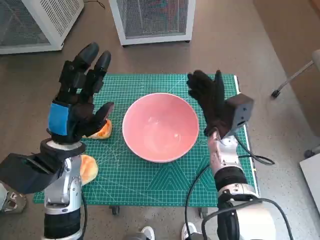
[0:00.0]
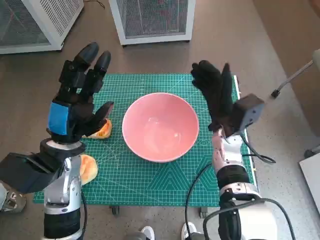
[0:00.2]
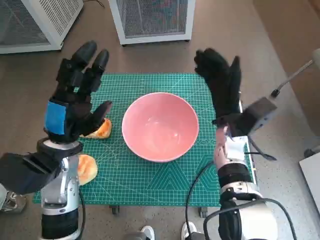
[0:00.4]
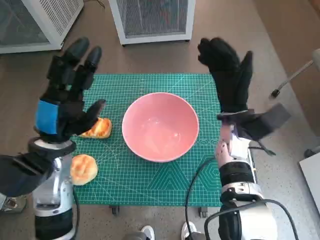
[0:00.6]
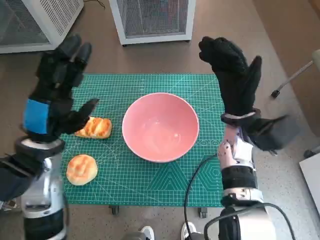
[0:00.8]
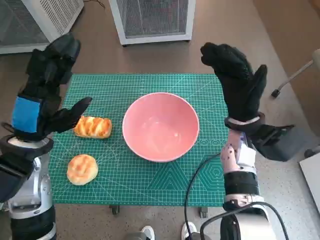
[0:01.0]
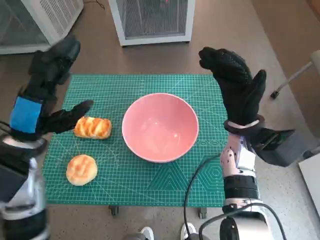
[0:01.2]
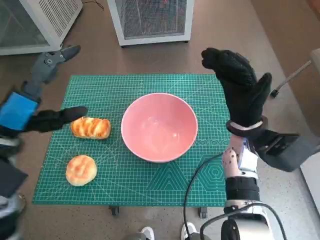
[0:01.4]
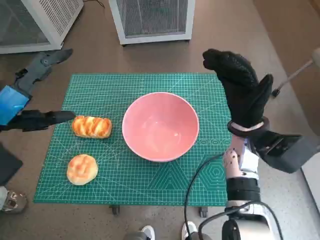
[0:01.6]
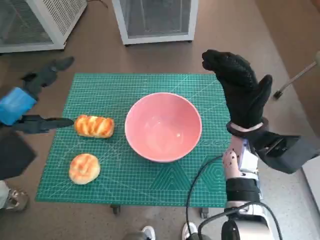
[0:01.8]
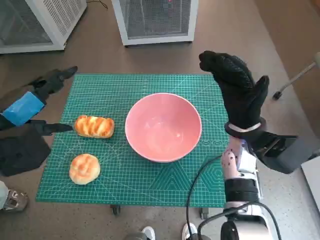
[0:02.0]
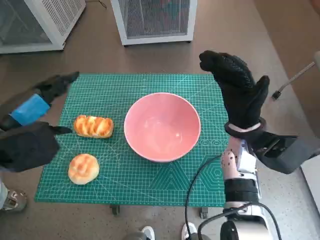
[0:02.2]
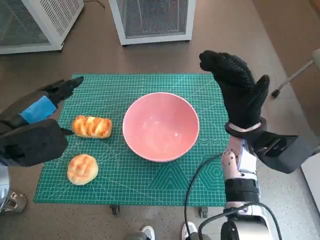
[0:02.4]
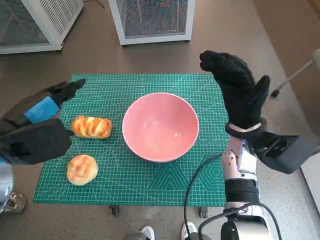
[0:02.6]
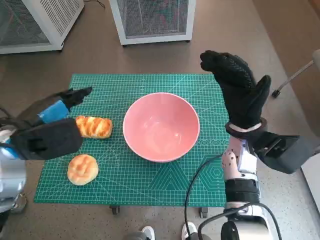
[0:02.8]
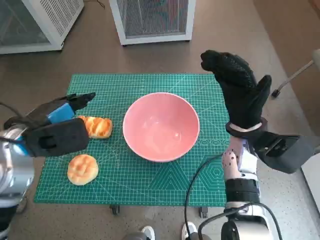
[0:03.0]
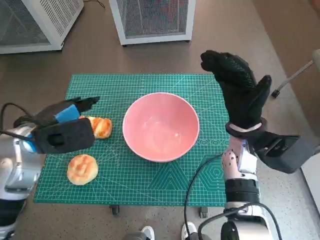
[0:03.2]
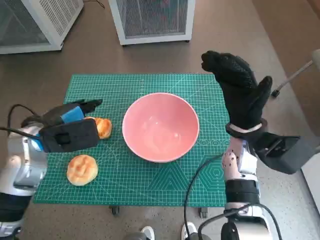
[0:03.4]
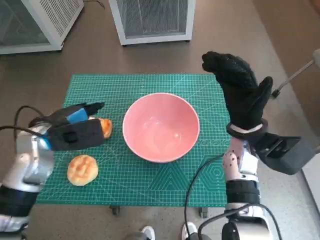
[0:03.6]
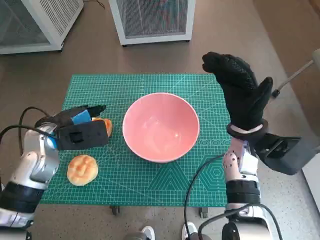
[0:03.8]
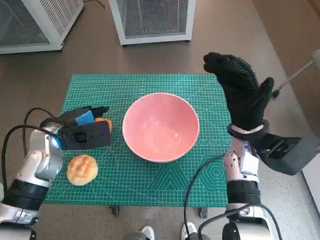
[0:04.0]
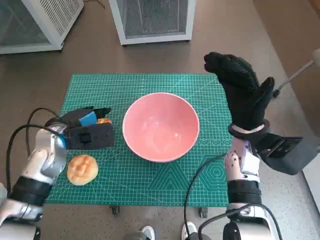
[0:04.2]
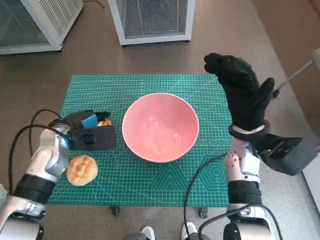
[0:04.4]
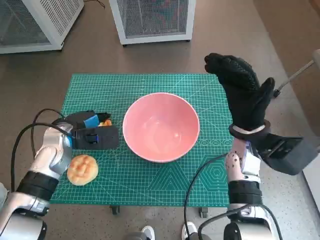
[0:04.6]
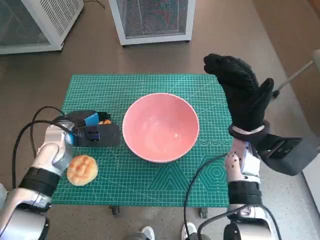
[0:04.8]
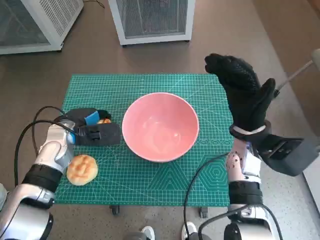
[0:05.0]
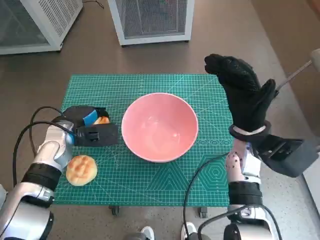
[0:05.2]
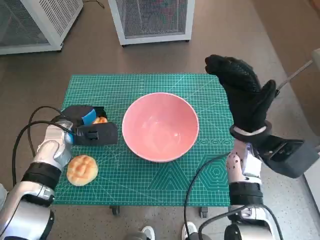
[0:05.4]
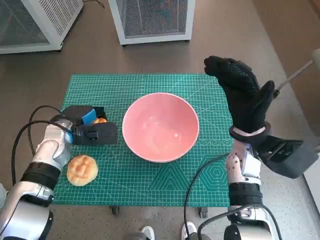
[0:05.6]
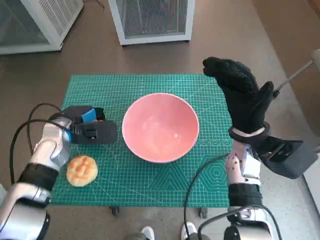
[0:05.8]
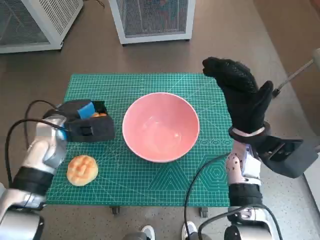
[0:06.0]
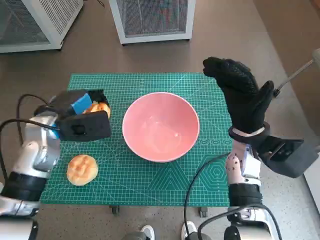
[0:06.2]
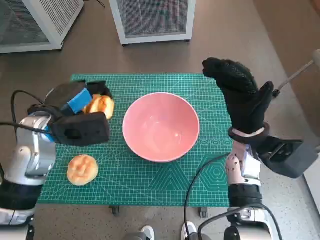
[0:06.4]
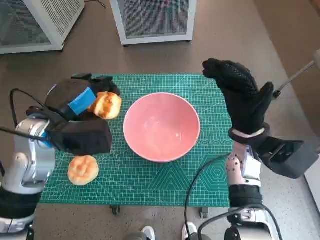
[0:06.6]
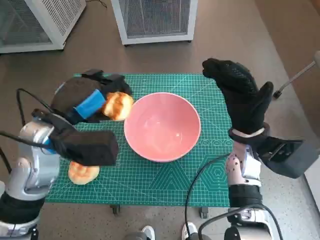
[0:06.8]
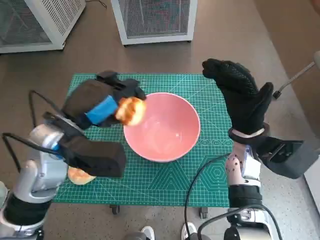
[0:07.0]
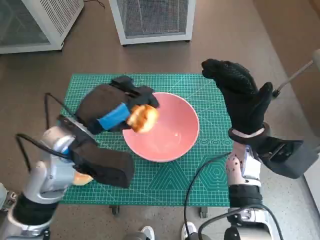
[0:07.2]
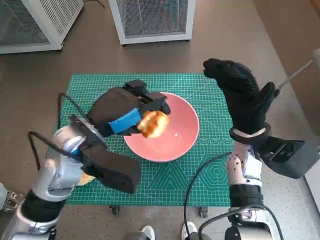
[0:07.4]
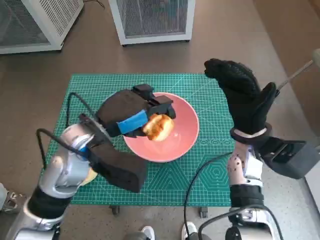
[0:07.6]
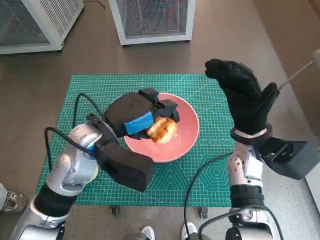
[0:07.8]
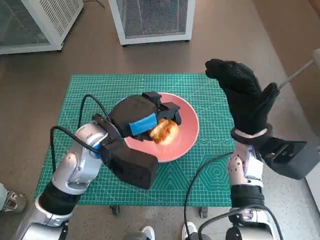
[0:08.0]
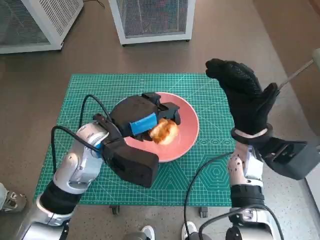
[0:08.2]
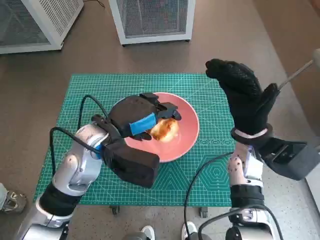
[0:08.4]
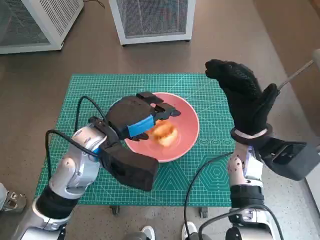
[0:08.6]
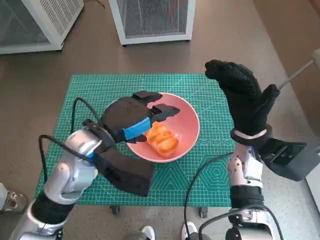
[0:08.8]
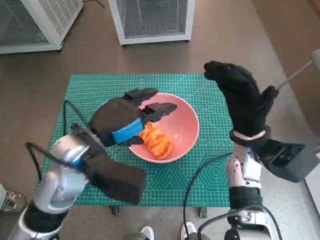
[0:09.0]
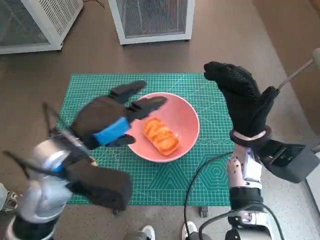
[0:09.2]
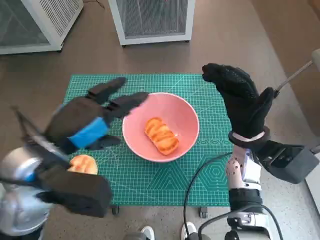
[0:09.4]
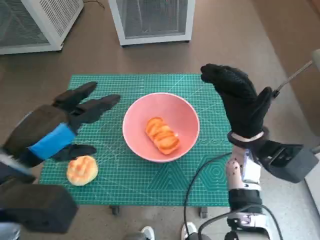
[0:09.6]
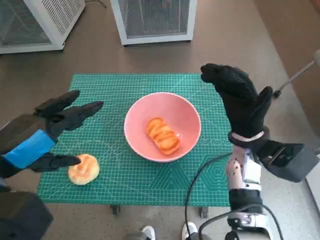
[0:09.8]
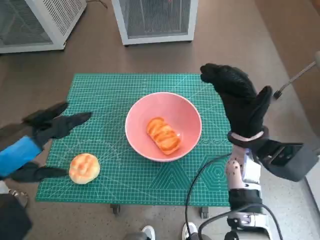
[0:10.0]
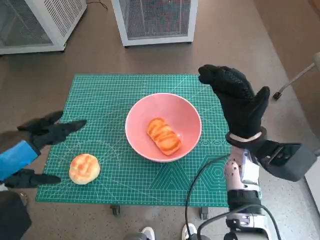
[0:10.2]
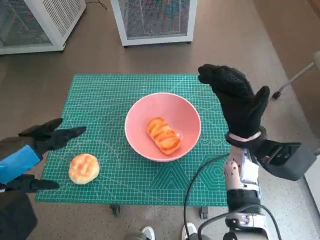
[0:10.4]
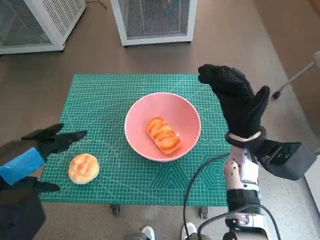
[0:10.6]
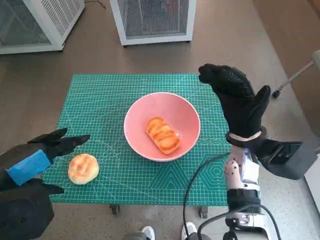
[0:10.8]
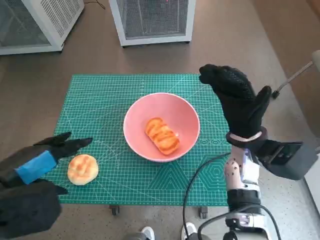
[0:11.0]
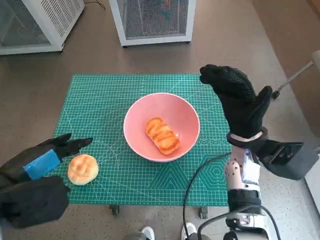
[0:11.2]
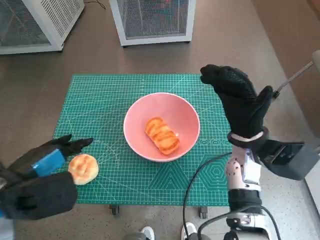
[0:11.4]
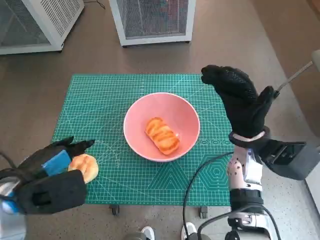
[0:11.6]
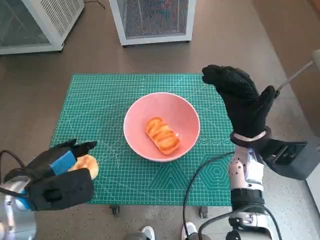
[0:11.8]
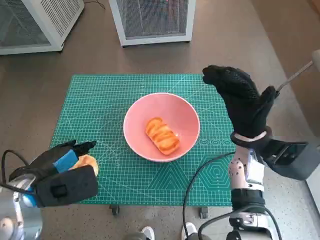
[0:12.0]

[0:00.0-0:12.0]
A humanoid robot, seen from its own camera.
Task of the whole recording: Push the bowl into the center of the table and put the bread into the bowl.
Step, 0:00.2 to 0:05.0: Grasp the long bread with left hand.
Step, 0:05.2 to 0:08.6: Place the long bread in pink bowl with left hand.
0:00.0 to 0:01.6: The left hand is displaced upward and to the left by some 10 cm; the right hand heads upward, covering roughly 5 cm.
0:01.6 to 0:03.0: The left hand moves approximately 5 cm.
0:03.0 to 0:04.4: The left hand heads downward and forward, covering some 10 cm.
0:04.4 to 0:06.0: The hands stay close to where they were, moving slightly.
0:06.0 to 0:07.6: The left hand moves to the right, upward and backward, roughly 15 cm.
0:07.6 to 0:09.0: The hands make only small movements.
0:09.0 to 0:10.4: The left hand goes approximately 15 cm to the left, backward and upward.
0:10.4 to 0:12.0: The left hand travels downward by about 10 cm.

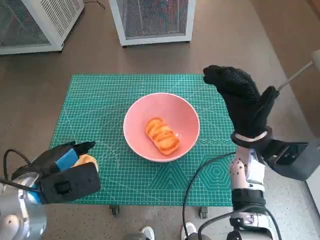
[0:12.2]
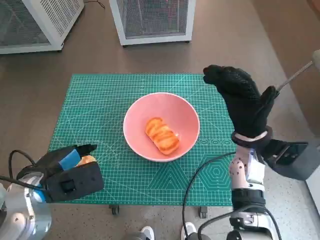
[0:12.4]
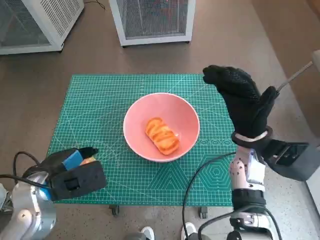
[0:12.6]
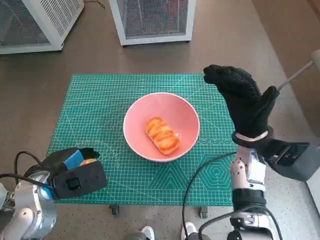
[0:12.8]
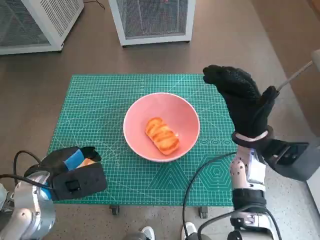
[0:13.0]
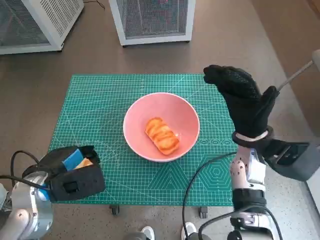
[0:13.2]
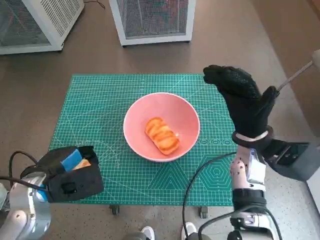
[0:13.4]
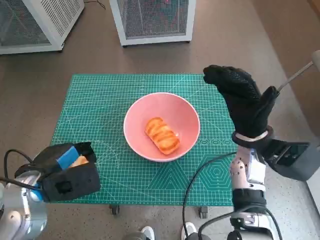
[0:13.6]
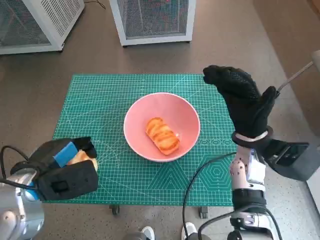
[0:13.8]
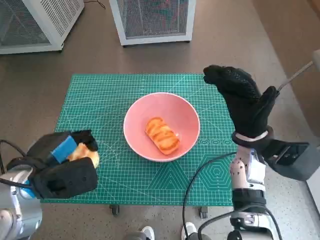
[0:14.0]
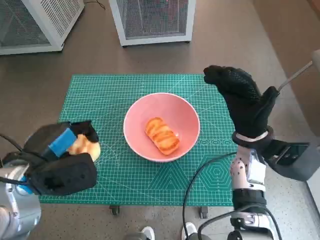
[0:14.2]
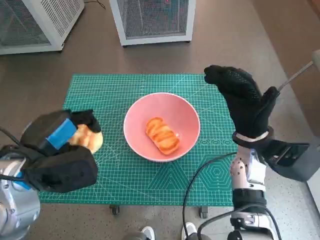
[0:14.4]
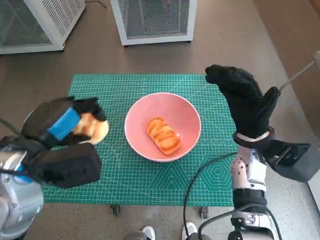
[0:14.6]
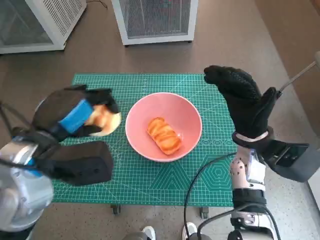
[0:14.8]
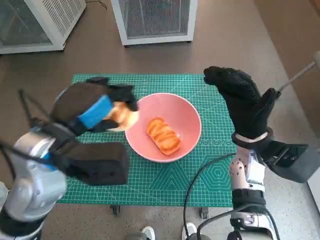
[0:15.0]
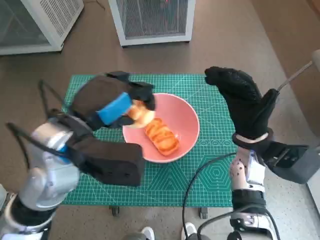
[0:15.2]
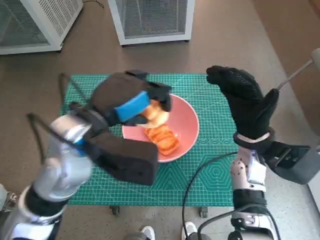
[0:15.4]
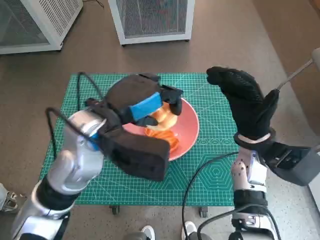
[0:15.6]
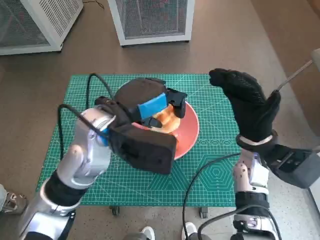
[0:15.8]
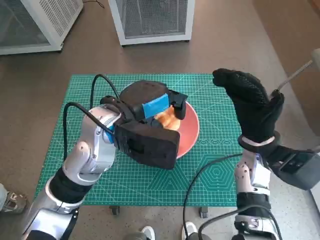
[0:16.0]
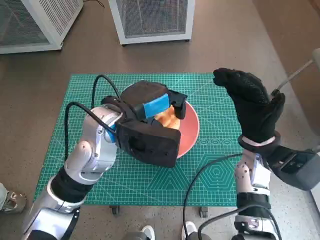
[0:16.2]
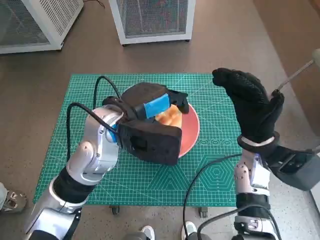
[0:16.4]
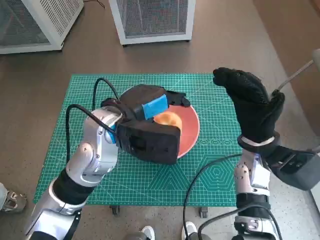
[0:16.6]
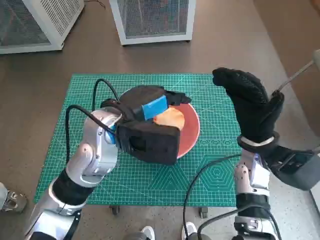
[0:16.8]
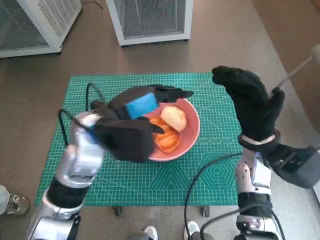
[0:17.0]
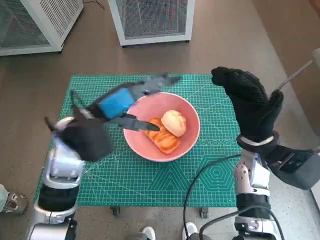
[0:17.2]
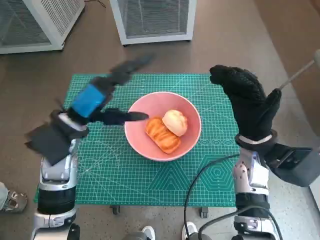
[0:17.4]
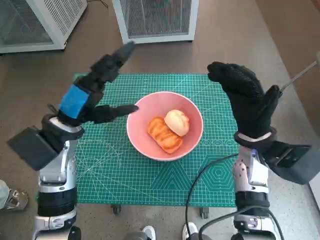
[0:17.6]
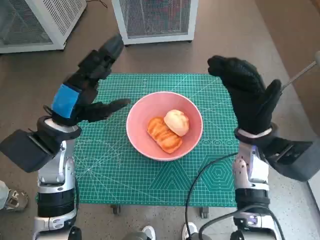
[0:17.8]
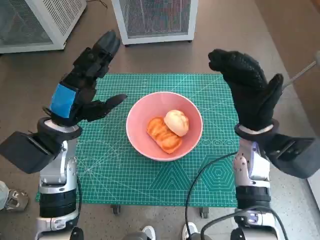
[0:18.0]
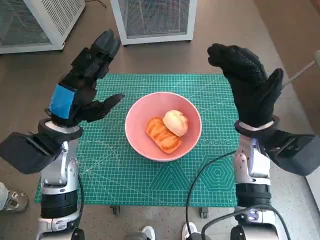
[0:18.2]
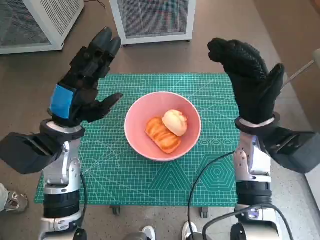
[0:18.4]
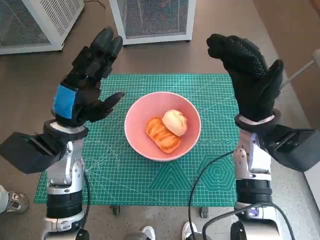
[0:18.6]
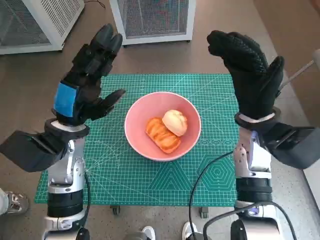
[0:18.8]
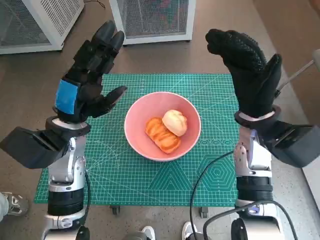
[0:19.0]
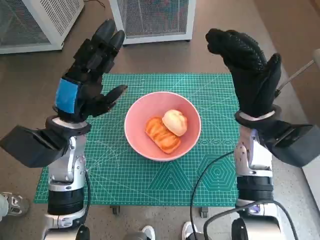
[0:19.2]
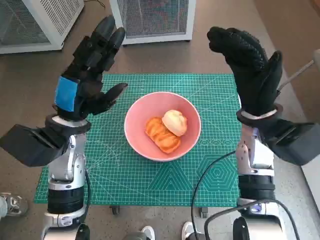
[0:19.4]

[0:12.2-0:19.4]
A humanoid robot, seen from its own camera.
Task of the whole recording: Push the bowl into the center of the table and put the bread into the bowl.
Step, 0:13.4 to 0:16.6: Place the round bread in pink bowl with left hand.
0:12.2 to 0:13.6: The hands move only a little.
0:13.6 to 0:15.0: The left hand heads upward and to the right, covering approximately 10 cm.
0:15.0 to 0:16.6: The left hand shifts about 10 cm to the right and forward.
0:16.6 to 0:18.0: The left hand is displaced to the left by approximately 10 cm.
